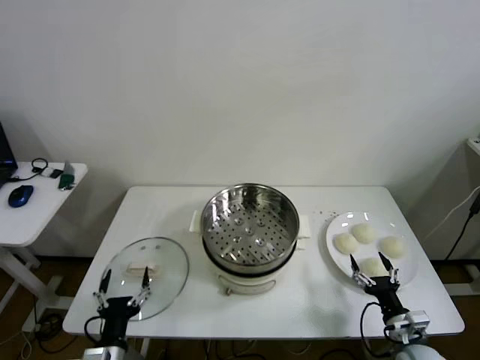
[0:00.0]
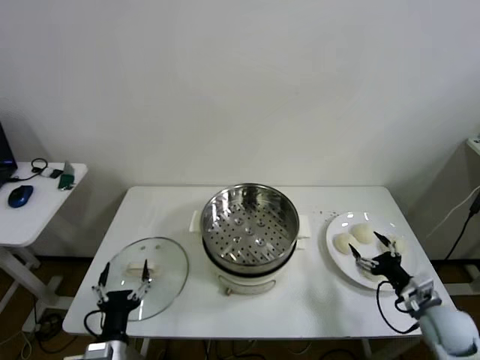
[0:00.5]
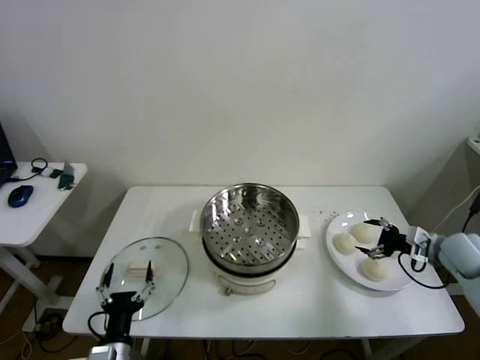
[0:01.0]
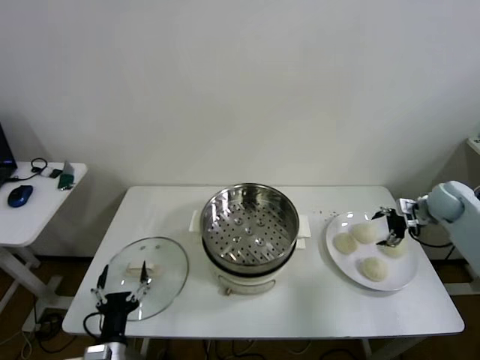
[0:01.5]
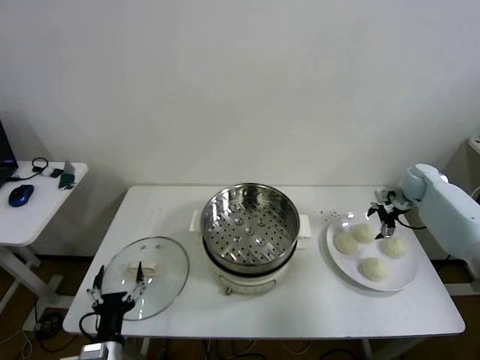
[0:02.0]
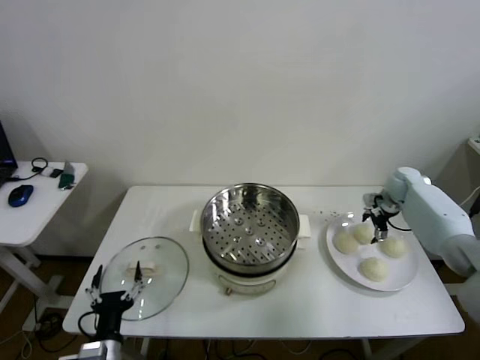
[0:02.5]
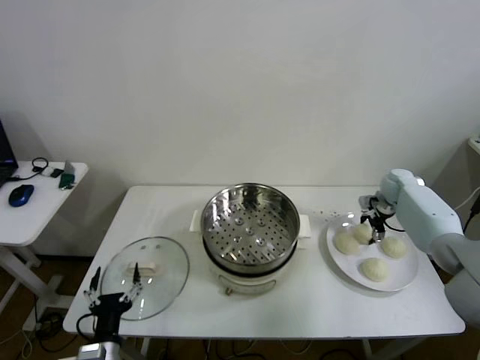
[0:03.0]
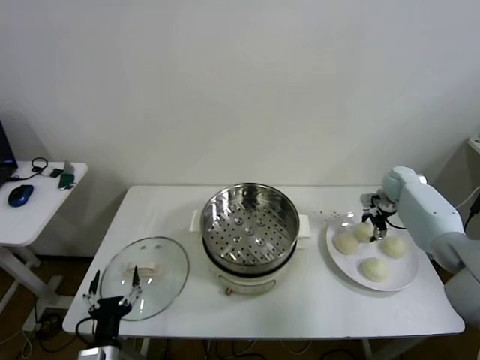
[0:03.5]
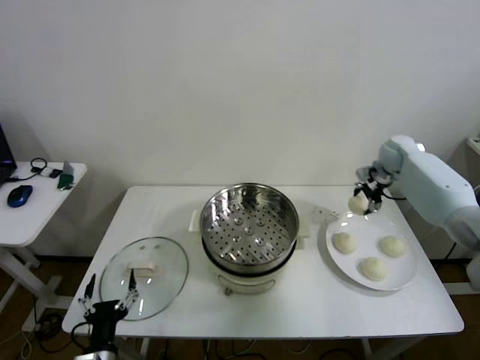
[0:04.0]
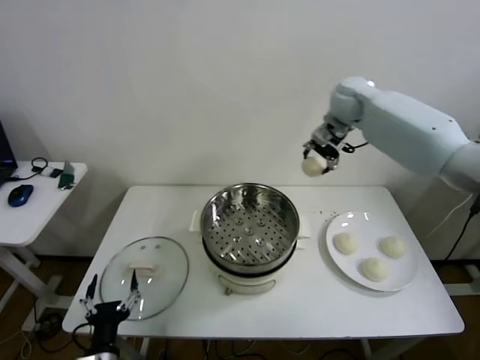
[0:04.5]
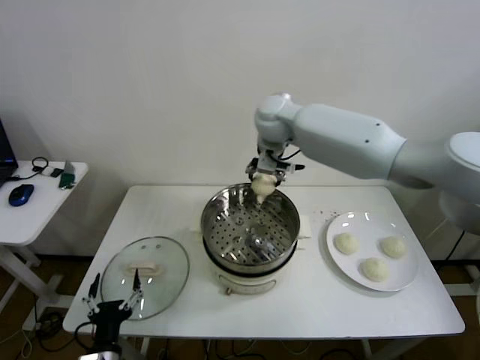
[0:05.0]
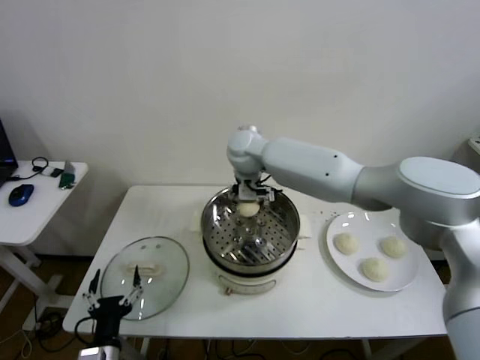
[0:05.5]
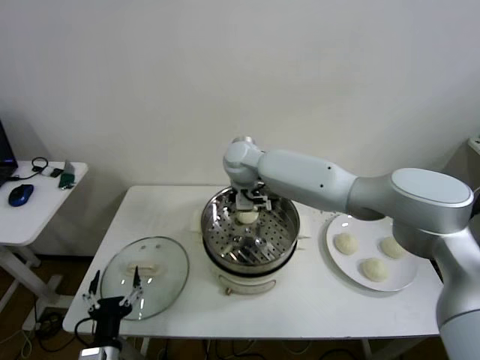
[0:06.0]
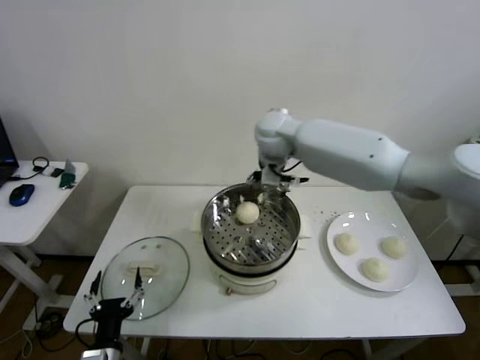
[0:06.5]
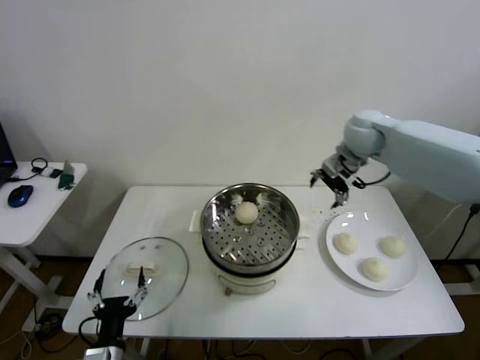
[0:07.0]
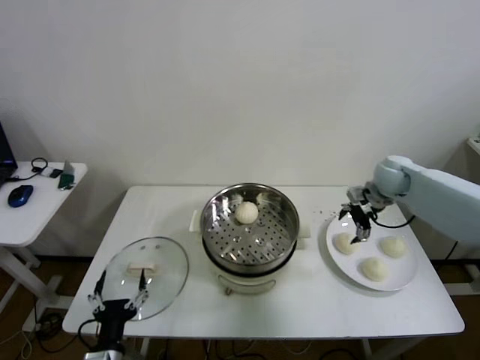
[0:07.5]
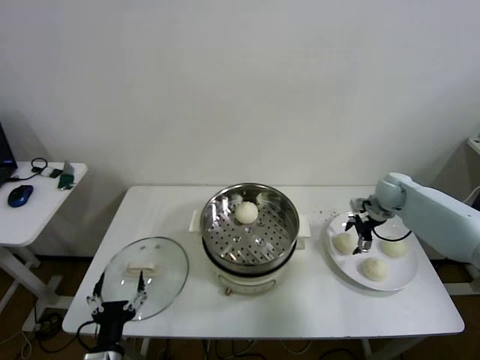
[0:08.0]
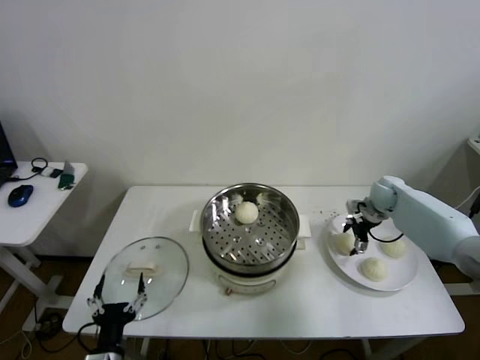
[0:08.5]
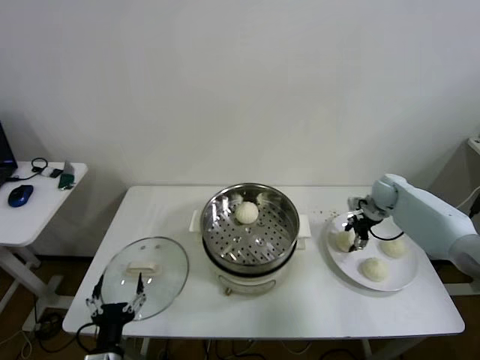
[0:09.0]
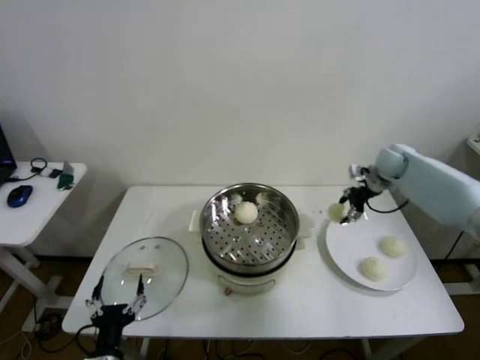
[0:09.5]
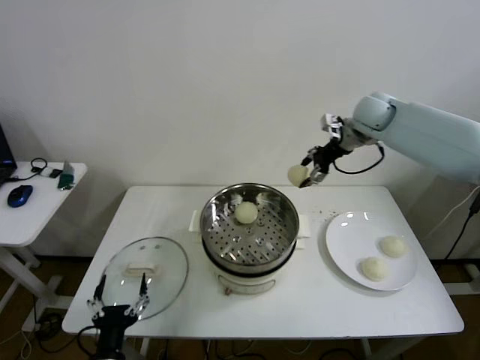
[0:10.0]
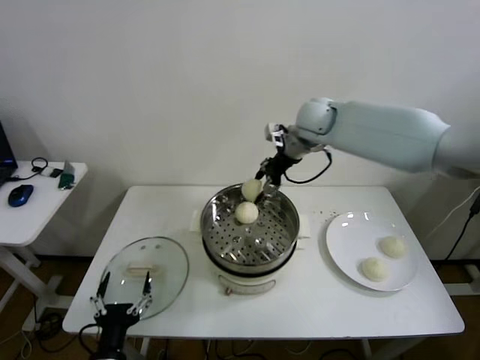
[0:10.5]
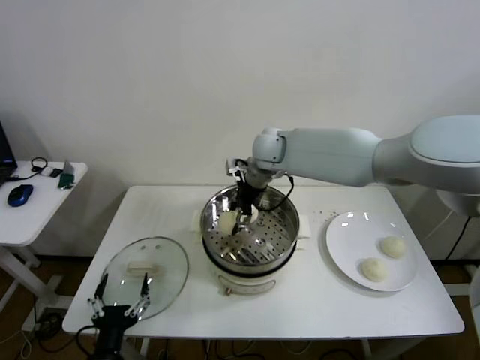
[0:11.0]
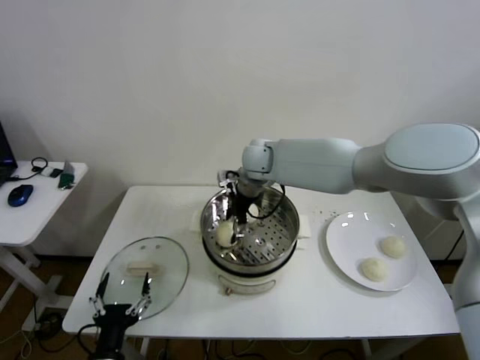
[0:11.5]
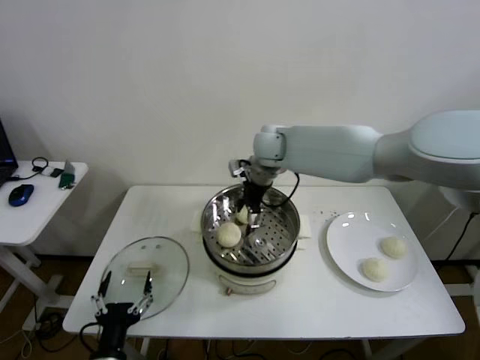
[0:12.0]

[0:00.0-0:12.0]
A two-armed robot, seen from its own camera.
Step, 0:00.0 to 0:03.0: Grasp the baozi in the plate with right gripper.
Step, 0:03.5 to 0:06.0: Place the baozi on the steamer with right gripper.
Step, 0:06.5 to 0:09.0: Grasp the baozi in the plate with right gripper.
Step, 0:09.5 to 0:11.5: Place the baozi on the steamer with right gripper.
0:02.0 to 0:04.0: The right gripper heads upward, to the left and forward, covering some 15 cm, and closes.
0:04.0 to 0:06.0: The right gripper heads to the left, covering roughly 40 cm, and opens its fingers.
0:06.0 to 0:08.0: The right gripper is displaced to the right by approximately 40 cm.
0:08.0 to 0:10.0: The right gripper goes some 25 cm upward and to the left, and closes its fingers.
0:10.0 to 0:12.0: The right gripper moves to the left, roughly 20 cm, and opens its fingers.

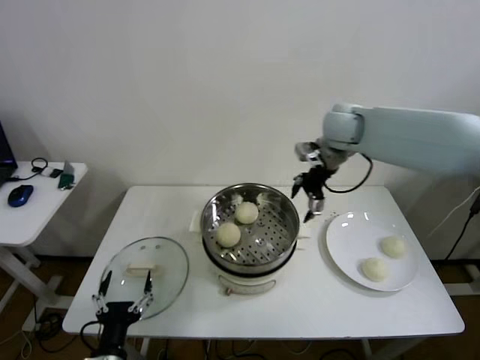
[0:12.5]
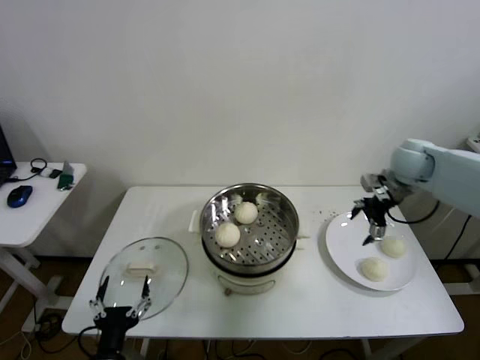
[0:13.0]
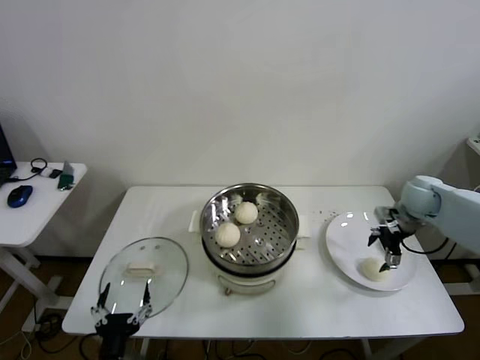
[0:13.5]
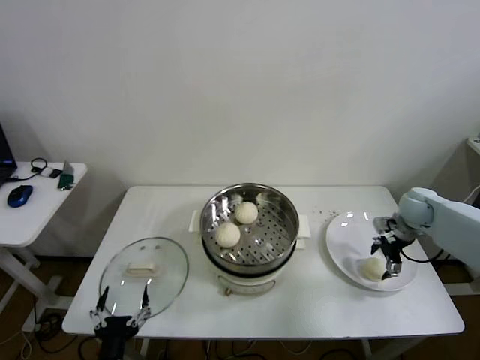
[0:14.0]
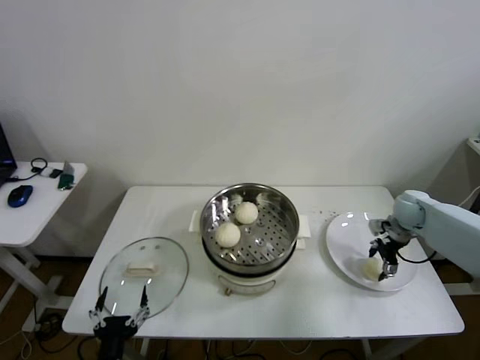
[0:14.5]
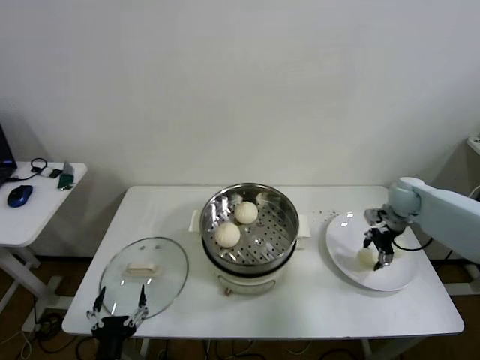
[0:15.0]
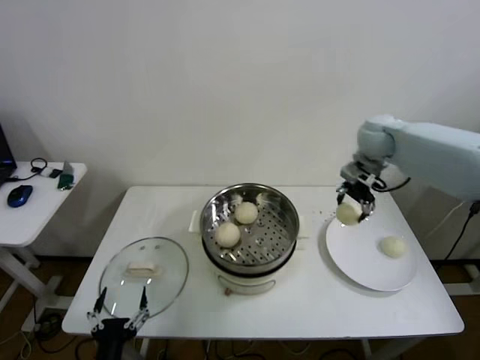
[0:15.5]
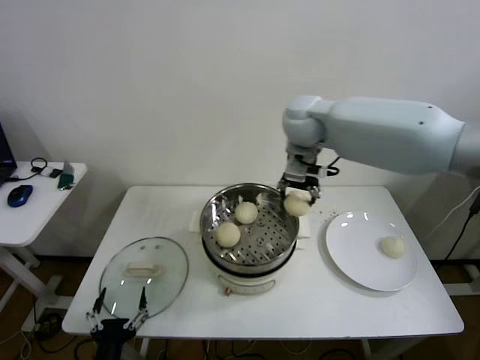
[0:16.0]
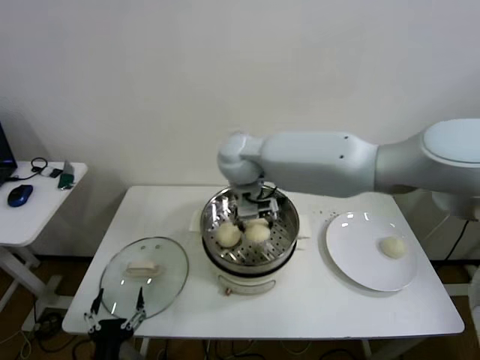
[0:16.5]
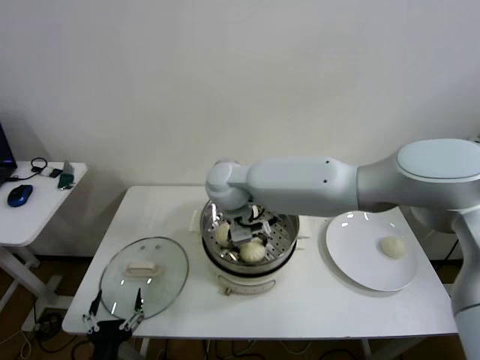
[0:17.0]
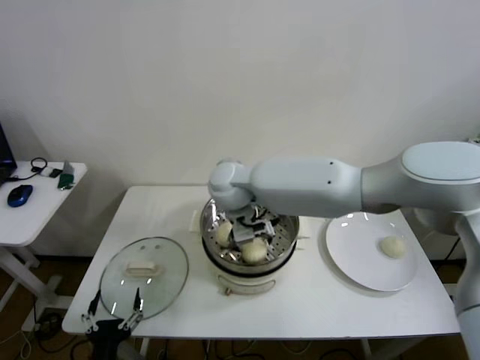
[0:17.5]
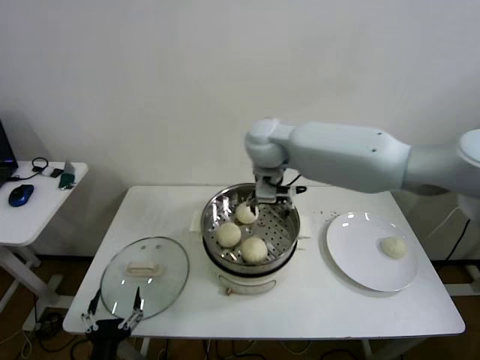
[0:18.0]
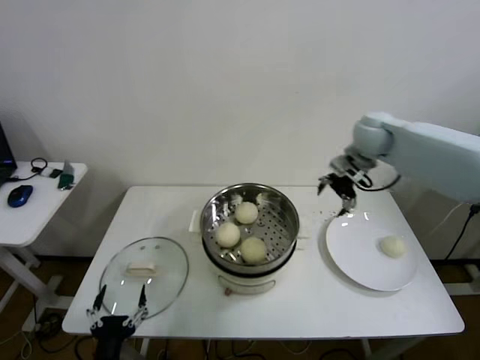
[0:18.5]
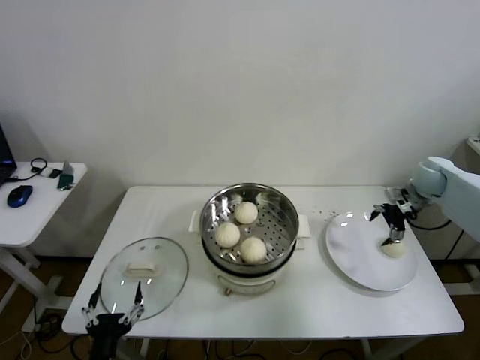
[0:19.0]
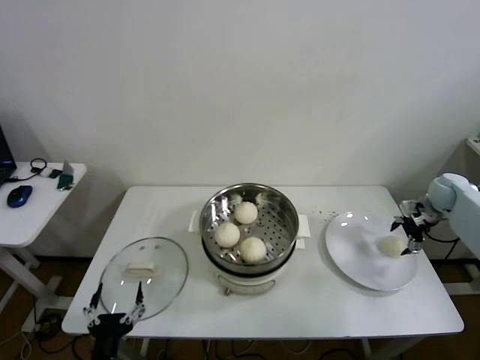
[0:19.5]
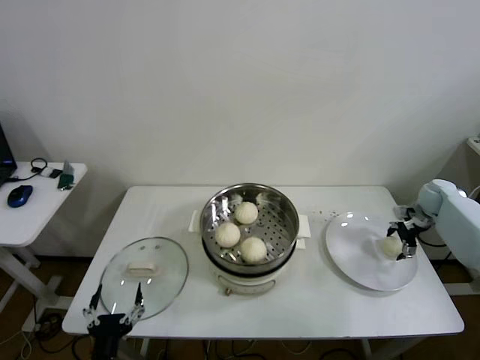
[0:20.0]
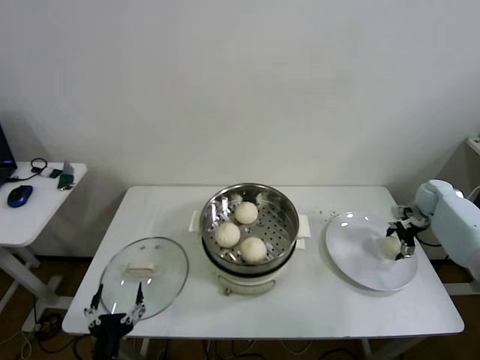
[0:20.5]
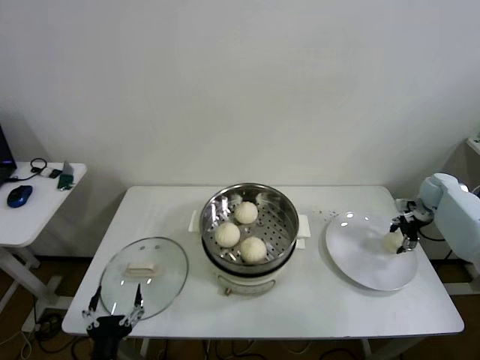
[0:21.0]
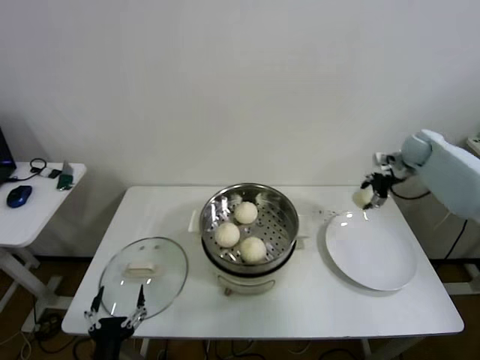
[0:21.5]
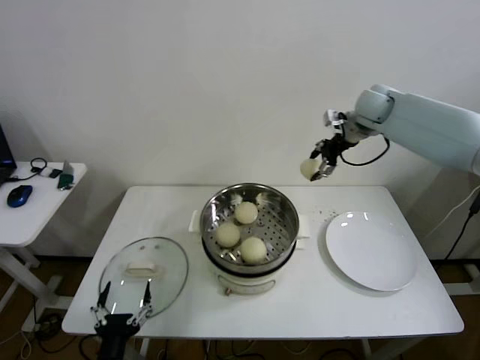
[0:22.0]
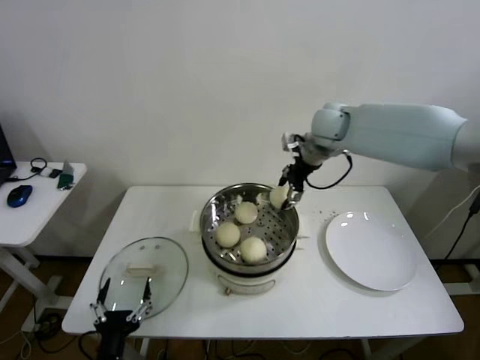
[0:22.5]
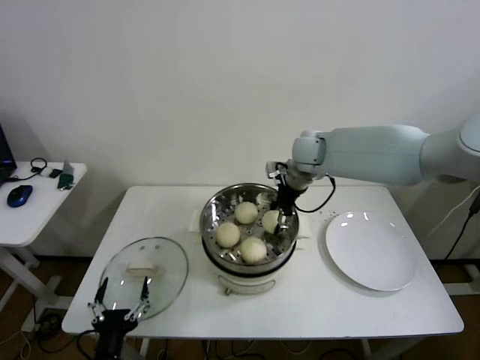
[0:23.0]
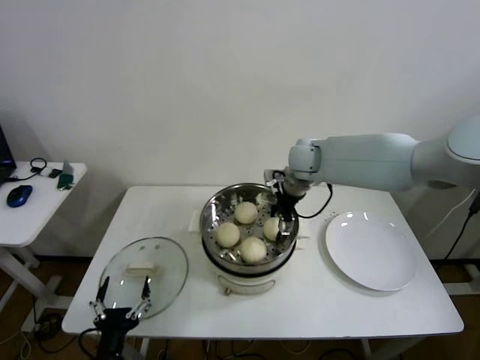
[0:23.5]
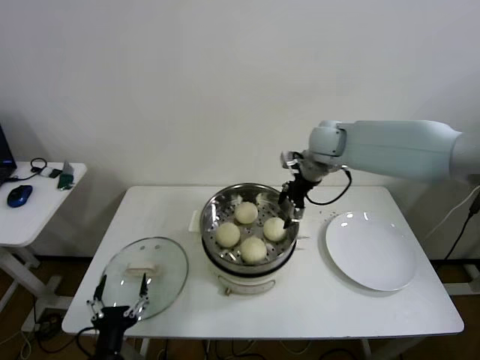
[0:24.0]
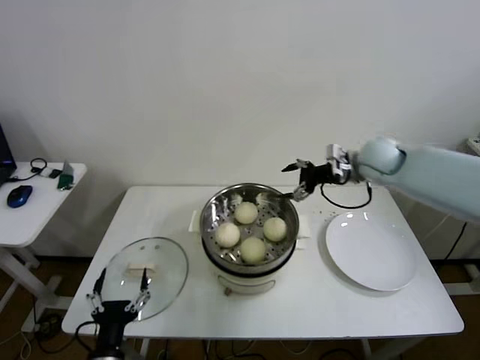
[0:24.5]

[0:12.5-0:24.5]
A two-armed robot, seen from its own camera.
Step, 0:12.5 to 0:14.5: Grasp the baozi in the plate with right gripper.
Step, 0:15.0 to 0:17.0: Place the baozi on the steamer with right gripper.
Step, 0:17.5 to 0:20.5: Grasp the baozi in the plate with right gripper.
Step, 0:21.0 to 0:23.5: Place the baozi on the steamer with right gripper.
0:12.5 to 0:14.5: The right gripper travels downward and to the right by about 30 cm, and closes.
0:14.5 to 0:16.5: The right gripper travels to the left and upward by about 50 cm.
0:16.5 to 0:18.5: The right gripper goes roughly 35 cm to the right, and opens.
0:18.5 to 0:20.5: The right gripper goes some 30 cm to the right and downward.
0:20.5 to 0:22.5: The right gripper travels to the left and upward by some 40 cm, and closes up.
0:22.5 to 0:24.5: The right gripper travels to the right, downward and backward by approximately 15 cm, and opens up.

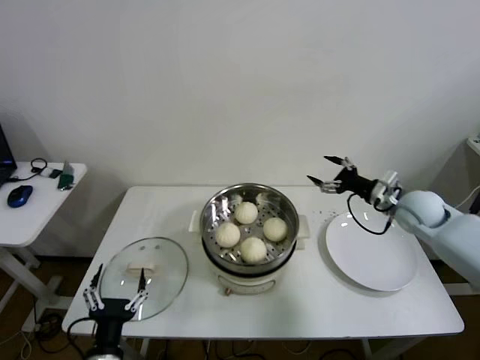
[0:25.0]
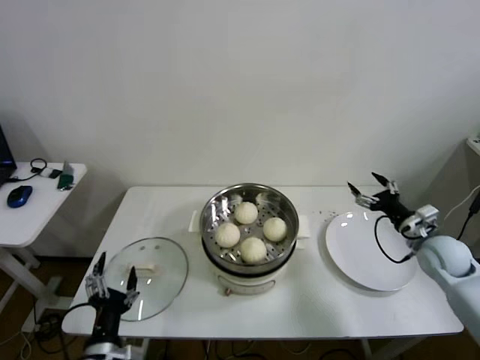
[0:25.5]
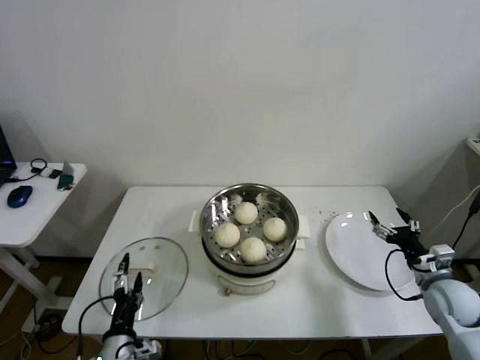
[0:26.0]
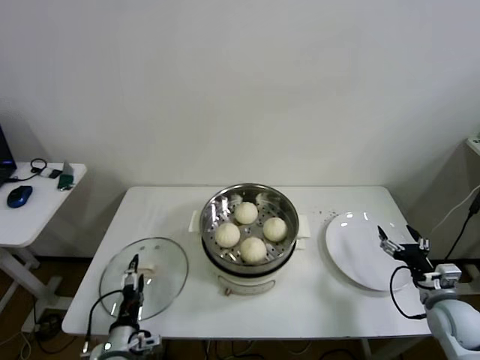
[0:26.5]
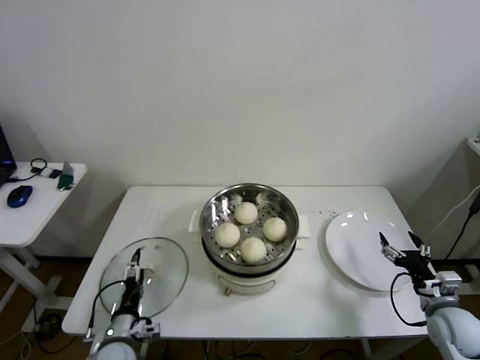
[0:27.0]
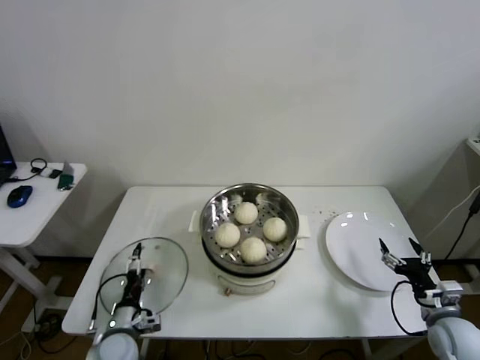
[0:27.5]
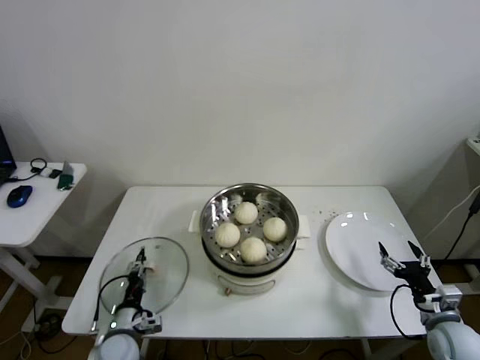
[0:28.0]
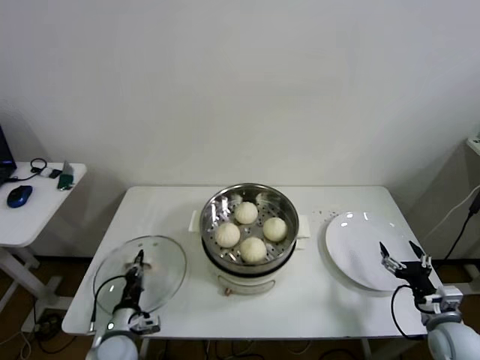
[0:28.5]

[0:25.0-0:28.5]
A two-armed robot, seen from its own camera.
Step, 0:25.0 to 0:28.0: Grasp the pot lid with left gripper.
0:25.0 to 0:27.0: The left gripper moves forward and downward, some 15 cm. The right gripper shifts roughly 25 cm backward and downward.
0:27.0 to 0:28.5: The left gripper closes its fingers.
